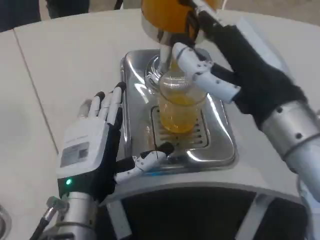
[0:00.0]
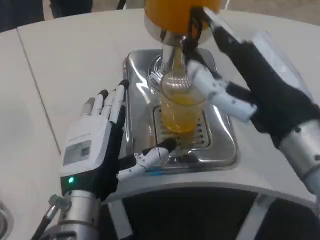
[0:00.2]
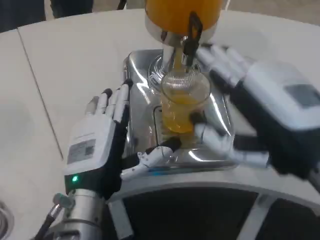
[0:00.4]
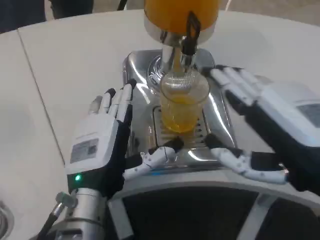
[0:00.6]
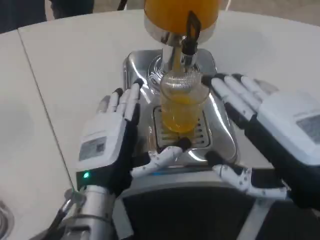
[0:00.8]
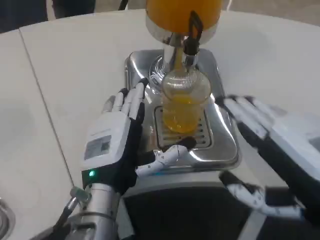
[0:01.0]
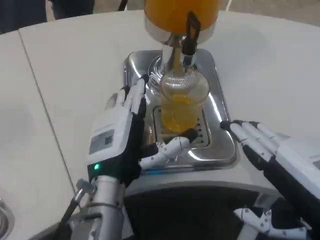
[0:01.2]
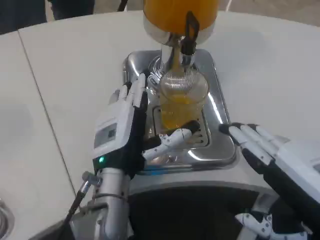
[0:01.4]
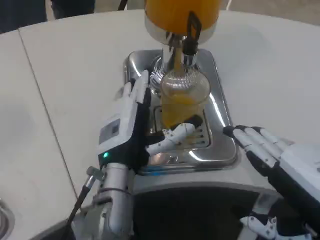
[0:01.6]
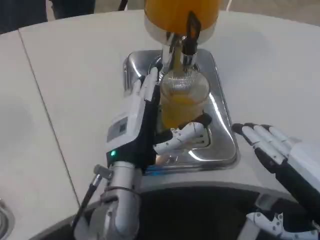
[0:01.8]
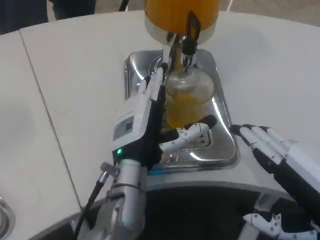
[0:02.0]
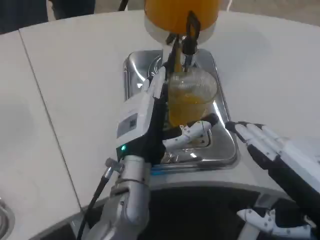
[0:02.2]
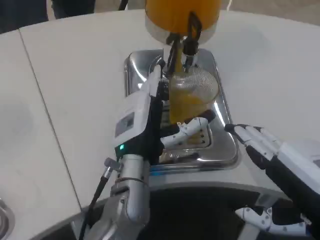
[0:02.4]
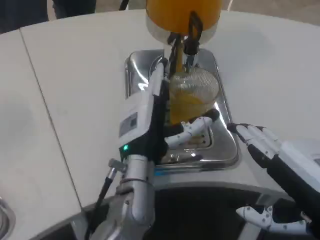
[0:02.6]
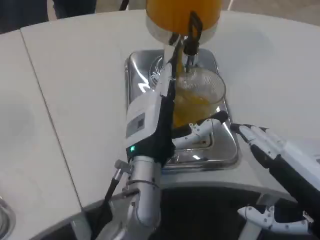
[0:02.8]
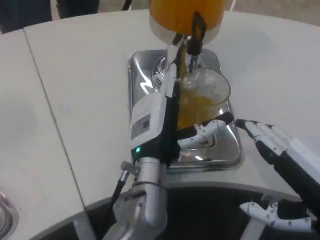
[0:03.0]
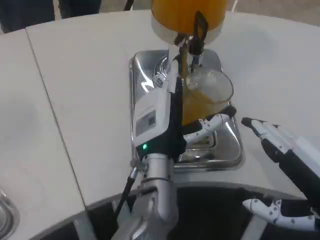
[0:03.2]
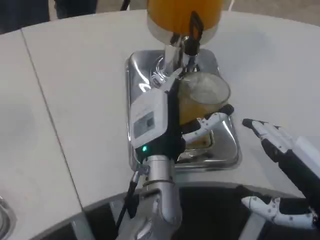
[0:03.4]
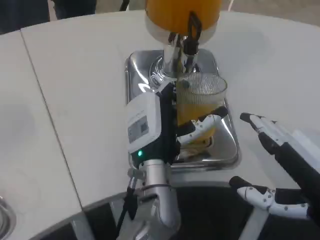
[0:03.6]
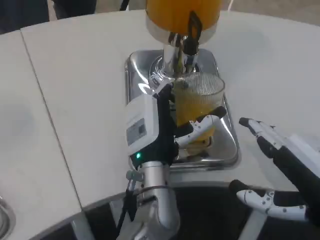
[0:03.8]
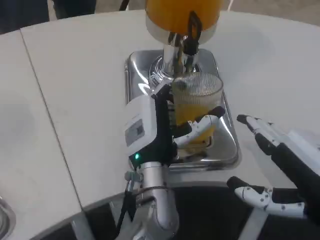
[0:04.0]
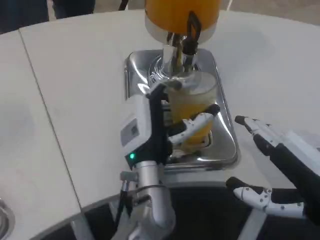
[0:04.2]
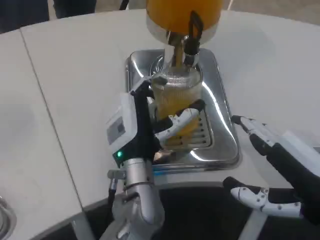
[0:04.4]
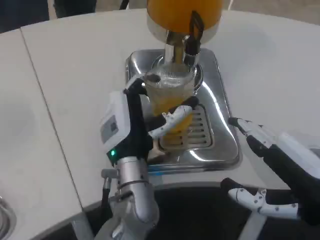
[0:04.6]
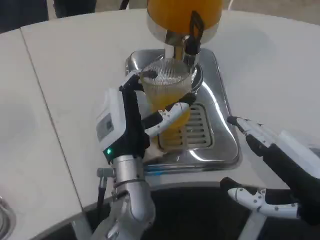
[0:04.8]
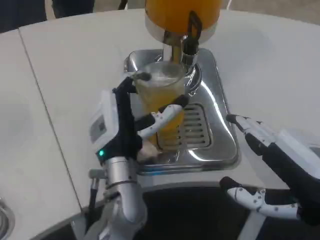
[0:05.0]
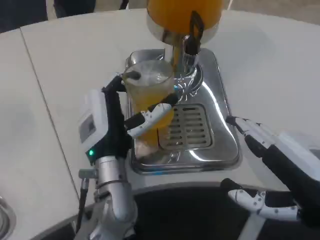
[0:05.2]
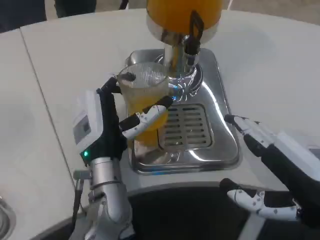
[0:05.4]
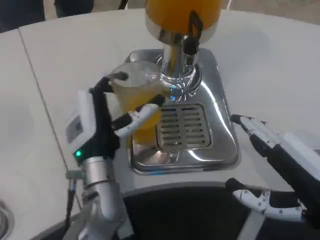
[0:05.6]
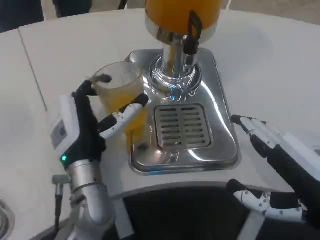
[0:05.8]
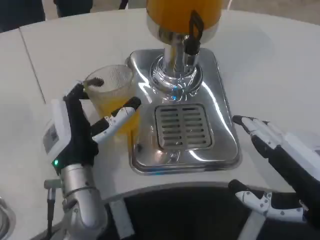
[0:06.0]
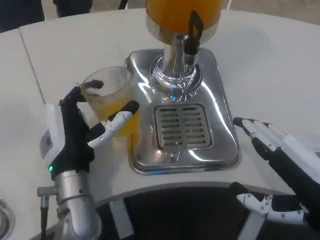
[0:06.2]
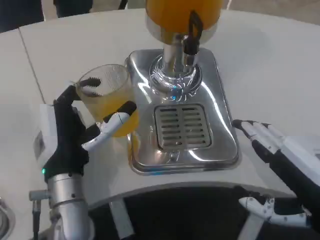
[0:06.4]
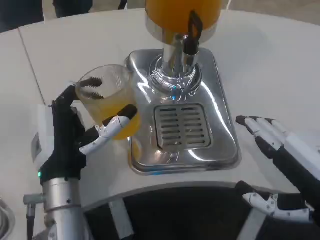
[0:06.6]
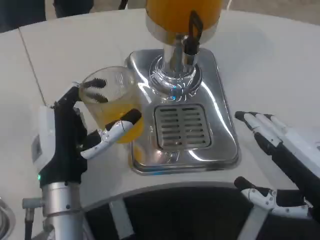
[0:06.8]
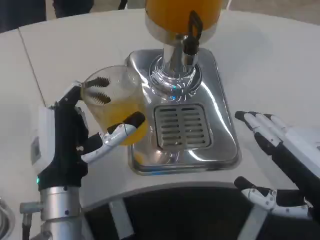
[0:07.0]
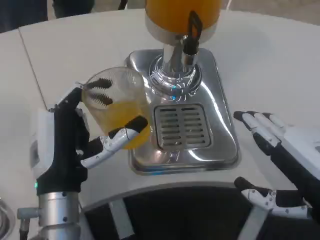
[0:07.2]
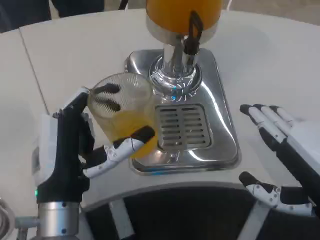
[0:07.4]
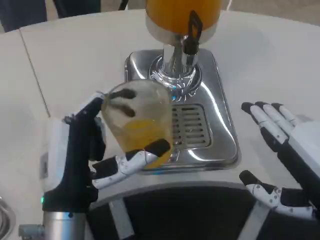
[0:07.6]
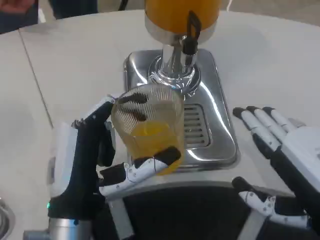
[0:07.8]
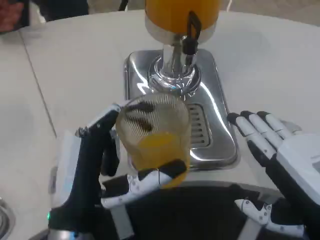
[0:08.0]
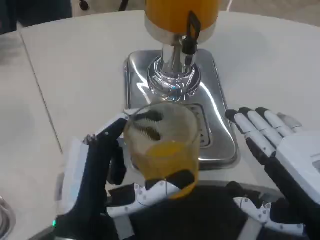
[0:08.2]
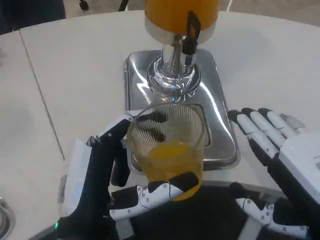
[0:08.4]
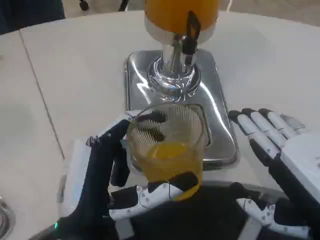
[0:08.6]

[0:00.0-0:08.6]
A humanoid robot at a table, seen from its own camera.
Task of the whole recording: Grasp the cup under the faucet to collect the drink, then remove the cup.
0.0 to 1.4 s: The left hand shifts by approximately 5 cm, while the right hand is displaced to the right, backward and downward by some 15 cm.
1.4 to 2.8 s: The left hand moves roughly 5 cm.
2.8 to 4.4 s: There are only small adjustments of the hands.
4.4 to 5.8 s: The left hand travels to the left by approximately 10 cm.
5.8 to 7.2 s: The left hand heads backward, covering roughly 5 cm.
7.2 to 8.6 s: The left hand goes approximately 5 cm backward.

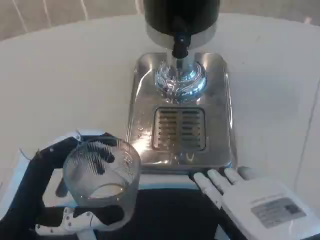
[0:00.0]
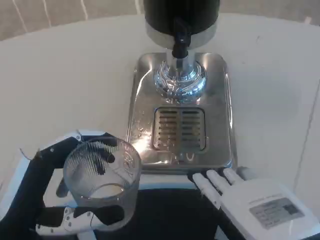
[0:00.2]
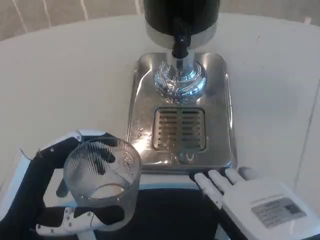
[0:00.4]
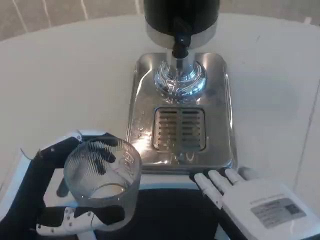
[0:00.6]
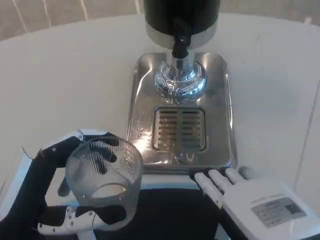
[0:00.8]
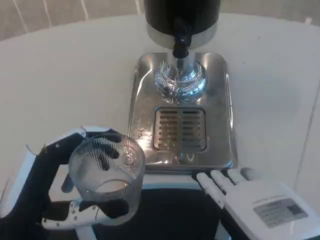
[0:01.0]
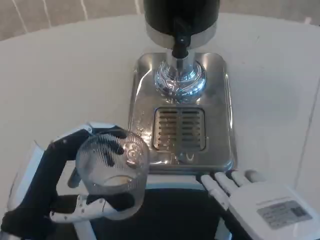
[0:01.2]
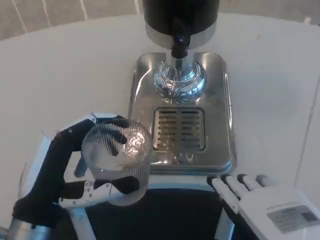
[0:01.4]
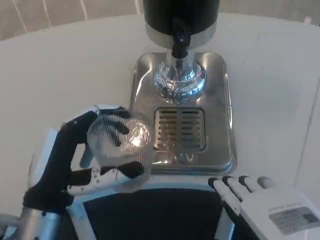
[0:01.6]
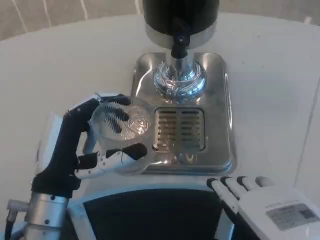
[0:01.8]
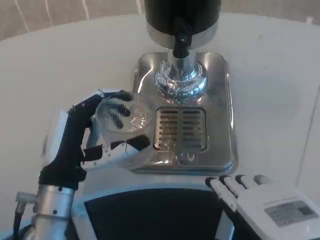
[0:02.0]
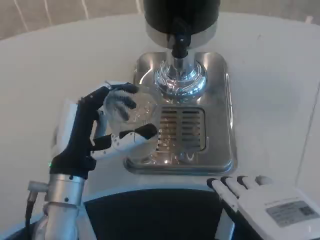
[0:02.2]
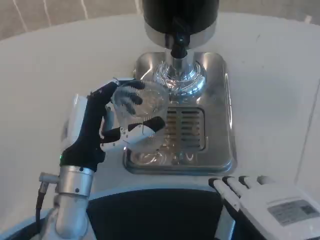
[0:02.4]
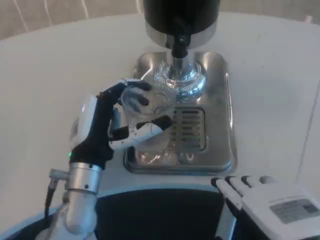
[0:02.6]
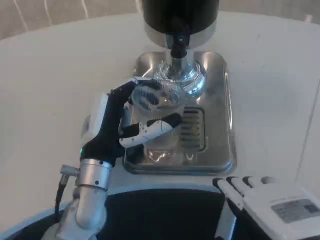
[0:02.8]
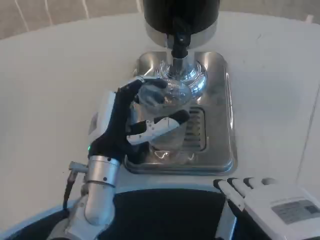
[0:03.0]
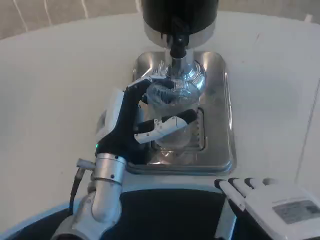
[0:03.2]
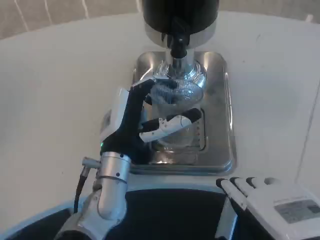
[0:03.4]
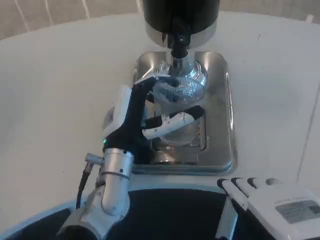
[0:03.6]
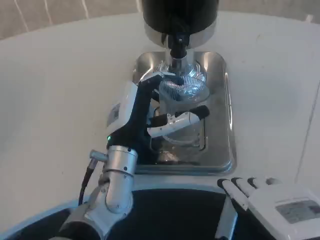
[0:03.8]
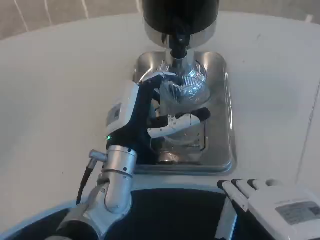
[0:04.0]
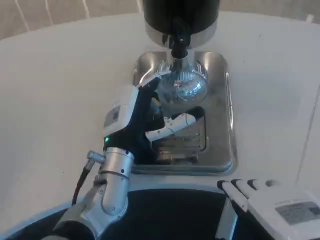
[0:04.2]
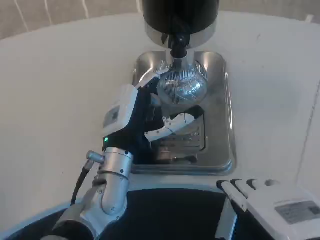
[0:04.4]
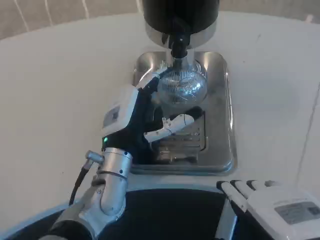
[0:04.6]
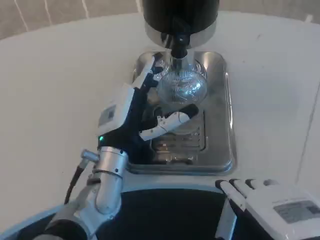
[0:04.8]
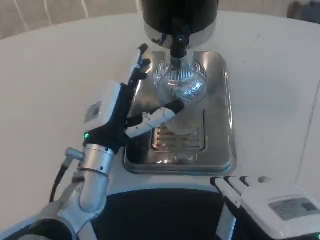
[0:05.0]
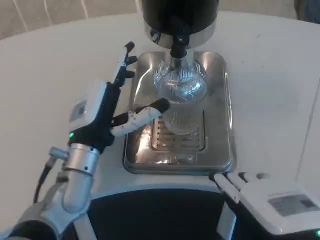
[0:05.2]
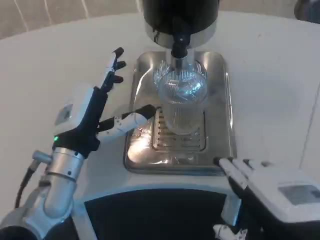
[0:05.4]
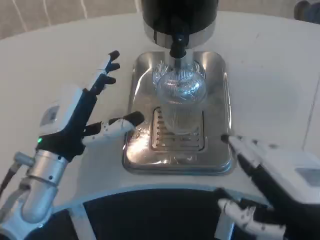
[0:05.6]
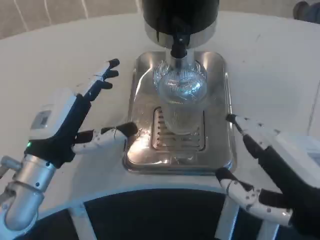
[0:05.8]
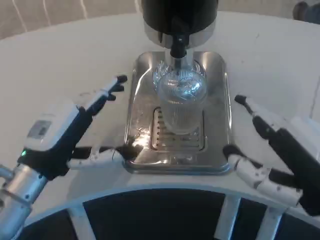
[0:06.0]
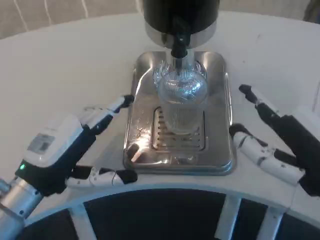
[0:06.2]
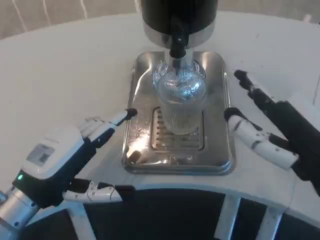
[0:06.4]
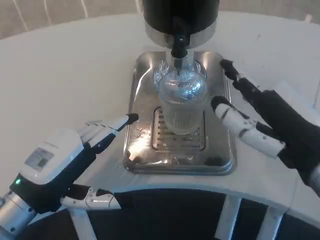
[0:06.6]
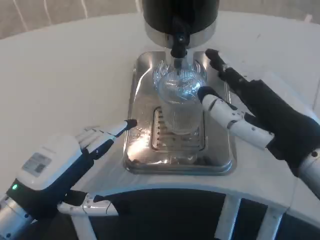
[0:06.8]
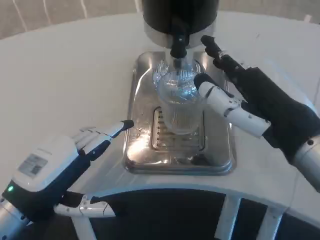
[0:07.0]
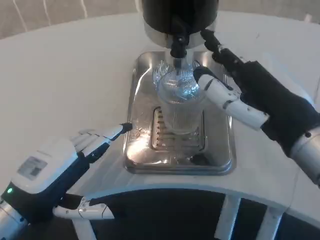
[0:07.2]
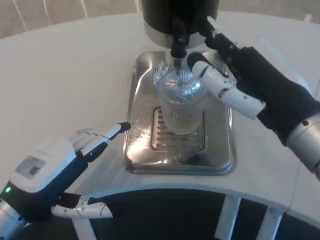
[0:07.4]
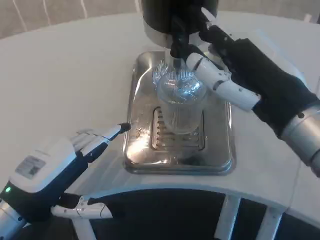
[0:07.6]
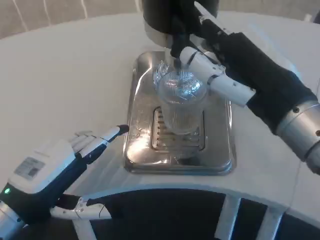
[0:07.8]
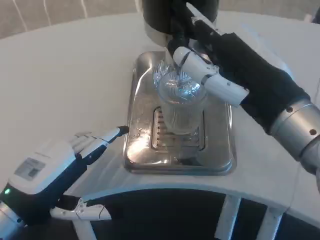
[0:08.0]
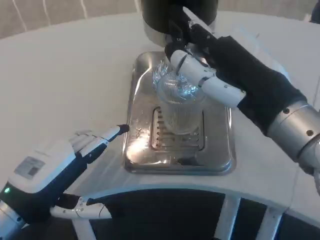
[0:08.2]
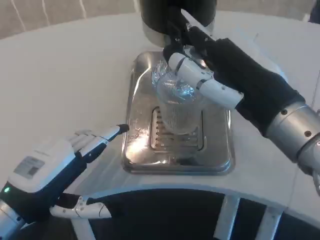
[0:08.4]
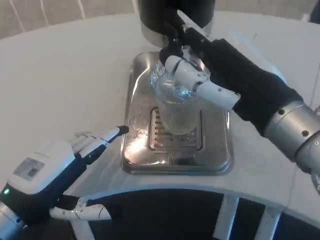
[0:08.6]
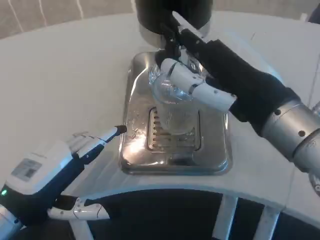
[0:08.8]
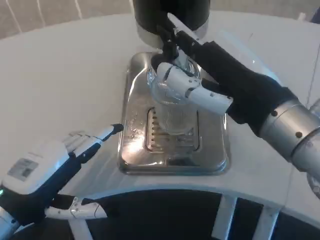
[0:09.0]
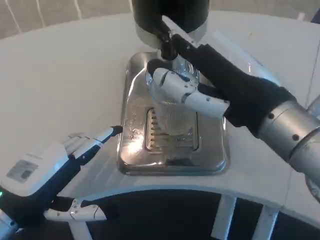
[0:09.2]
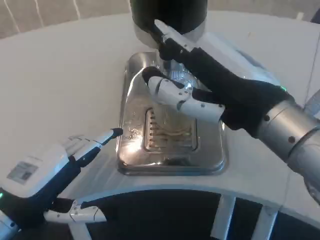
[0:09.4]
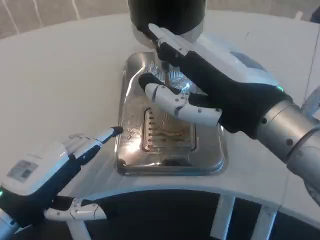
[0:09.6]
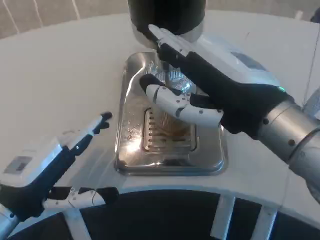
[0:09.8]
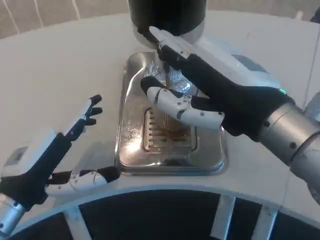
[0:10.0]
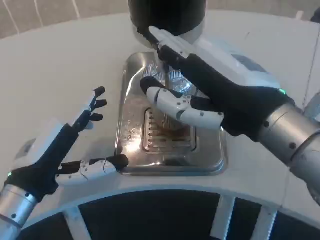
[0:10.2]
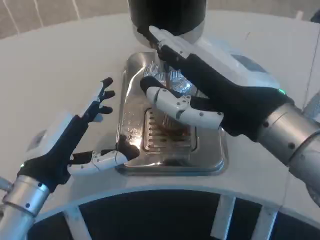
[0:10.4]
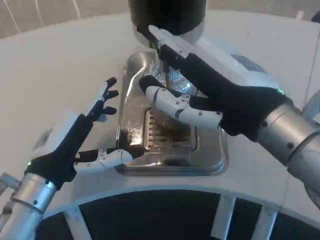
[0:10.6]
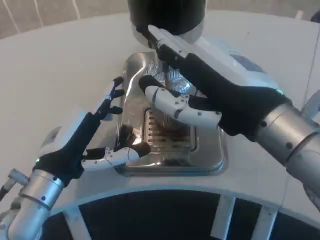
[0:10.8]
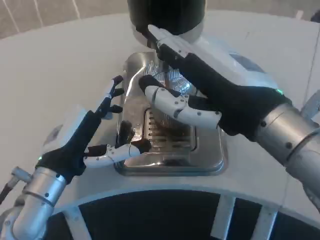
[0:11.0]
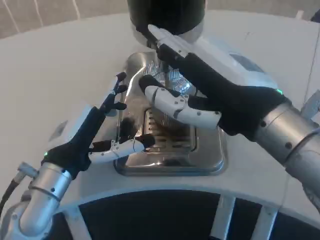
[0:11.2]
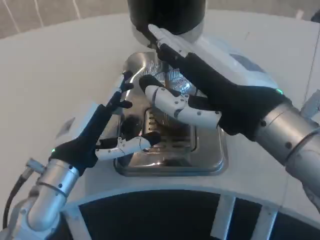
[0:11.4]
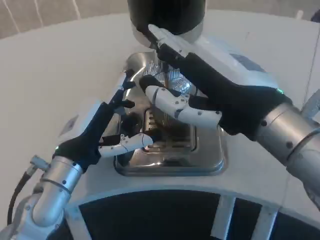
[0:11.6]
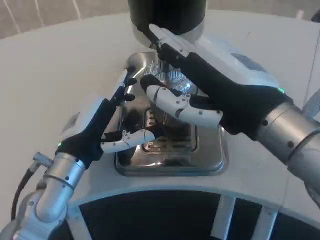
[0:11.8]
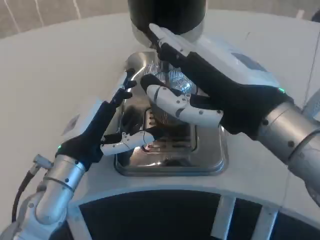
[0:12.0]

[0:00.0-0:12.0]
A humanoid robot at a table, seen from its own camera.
Task of the whole recording: Grasp the cup under the faucet to collect the drink, then remove the cup.
0.0 to 1.6 s: The left hand is displaced forward by about 5 cm.
1.6 to 3.0 s: The left hand moves forward and to the right, roughly 10 cm.
3.0 to 4.4 s: There are only small adjustments of the hands.
4.4 to 6.0 s: The left hand moves to the left, roughly 15 cm.
6.0 to 7.6 s: The right hand goes approximately 5 cm forward. Meanwhile the left hand moves some 5 cm.
9.0 to 10.4 s: The left hand ends up about 5 cm from where it was.
10.4 to 12.0 s: The left hand changes place by some 5 cm.

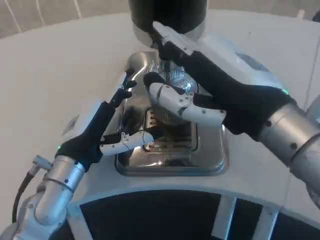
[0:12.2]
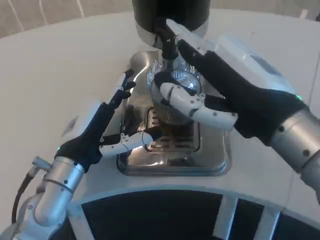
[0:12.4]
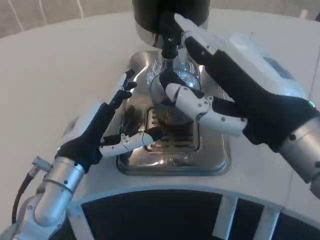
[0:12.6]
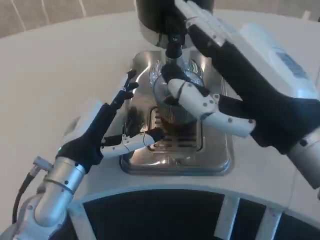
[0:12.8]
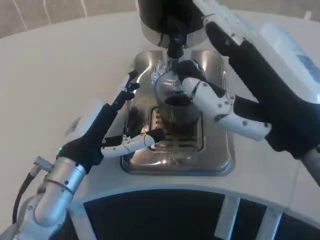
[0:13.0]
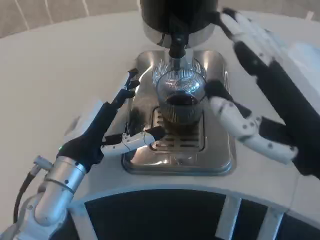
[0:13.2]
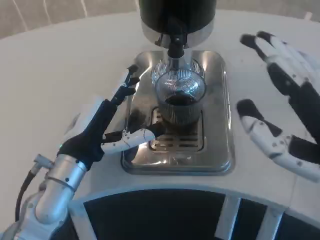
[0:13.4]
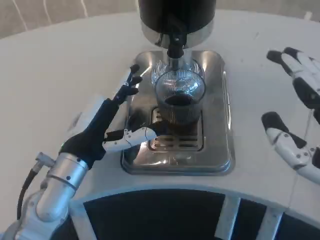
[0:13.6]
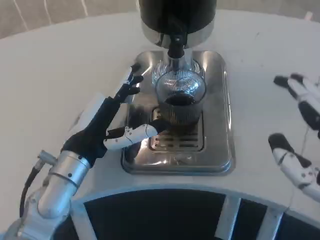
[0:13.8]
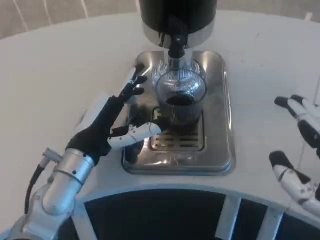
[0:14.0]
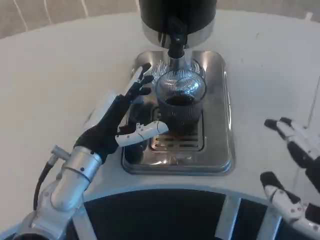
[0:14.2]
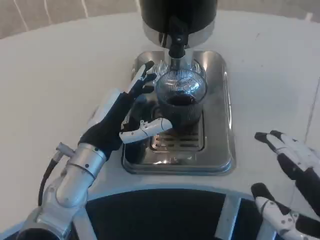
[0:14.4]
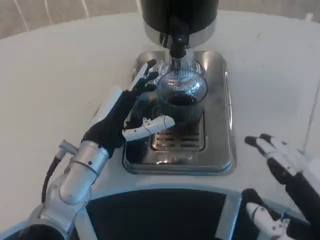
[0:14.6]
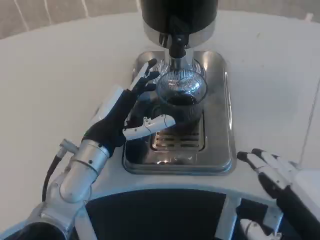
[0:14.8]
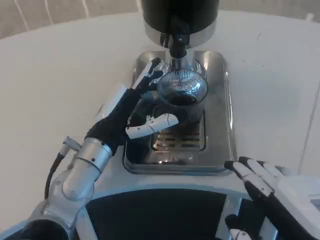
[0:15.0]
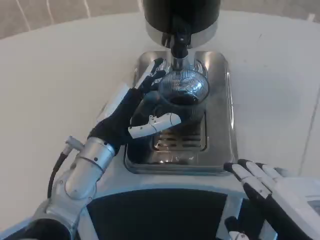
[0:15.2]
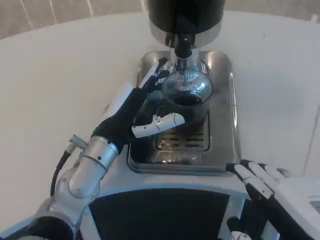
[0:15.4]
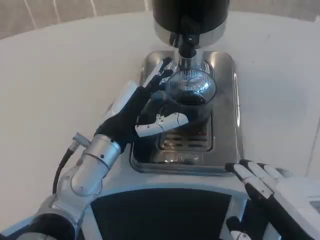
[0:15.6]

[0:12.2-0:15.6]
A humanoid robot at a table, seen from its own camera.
Task of the whole recording: Grasp the cup under the faucet to collect the drink, then remove the cup.
12.2 to 13.8 s: The right hand is displaced backward, to the right and downward by some 15 cm.
13.8 to 15.6 s: The left hand shifts by some 5 cm.
